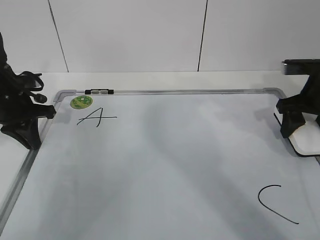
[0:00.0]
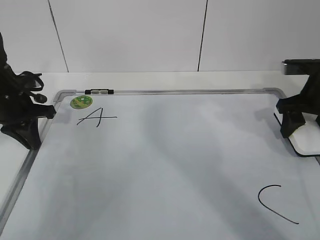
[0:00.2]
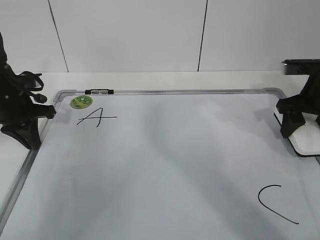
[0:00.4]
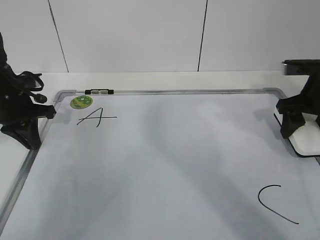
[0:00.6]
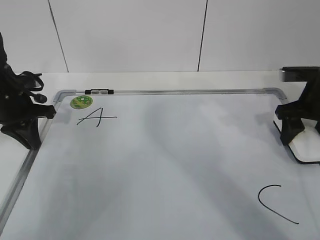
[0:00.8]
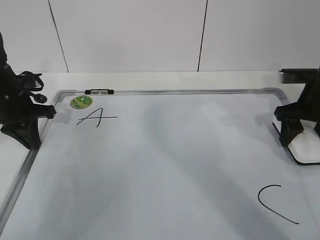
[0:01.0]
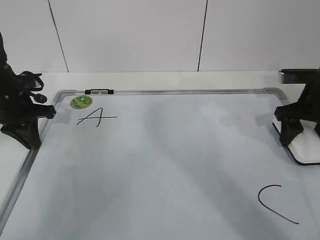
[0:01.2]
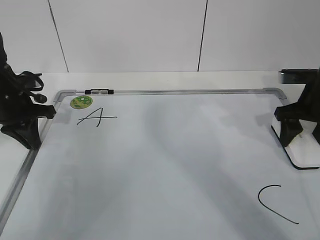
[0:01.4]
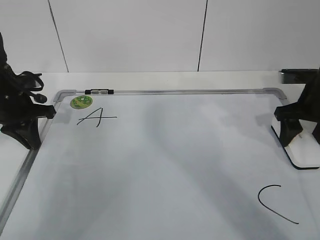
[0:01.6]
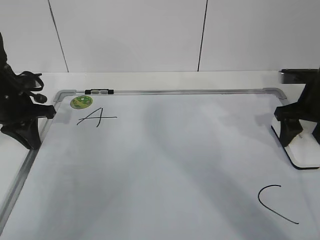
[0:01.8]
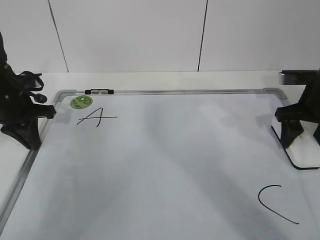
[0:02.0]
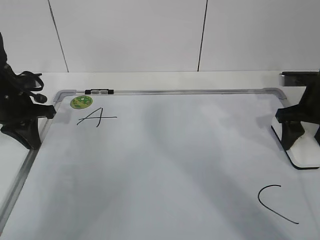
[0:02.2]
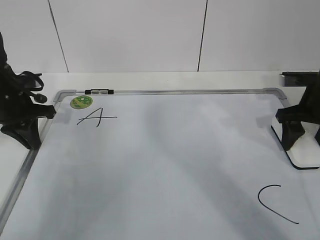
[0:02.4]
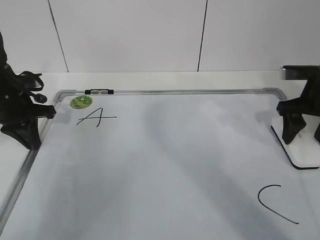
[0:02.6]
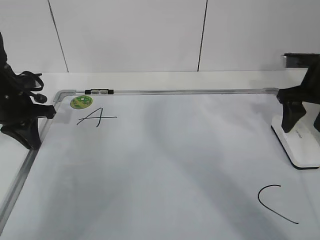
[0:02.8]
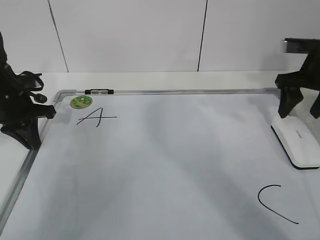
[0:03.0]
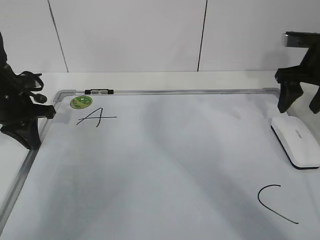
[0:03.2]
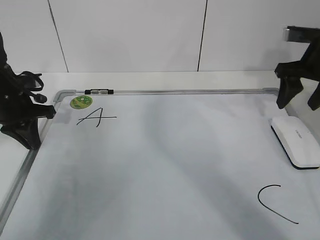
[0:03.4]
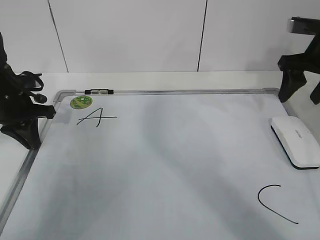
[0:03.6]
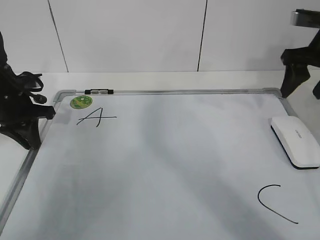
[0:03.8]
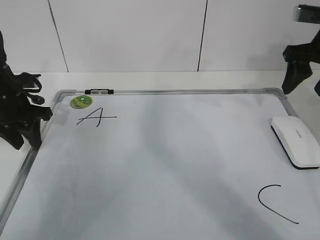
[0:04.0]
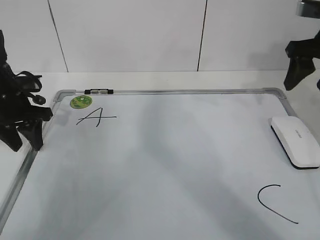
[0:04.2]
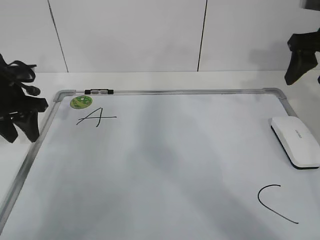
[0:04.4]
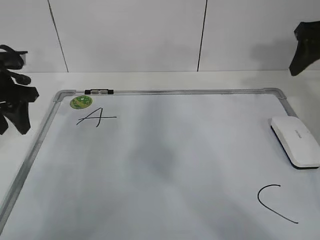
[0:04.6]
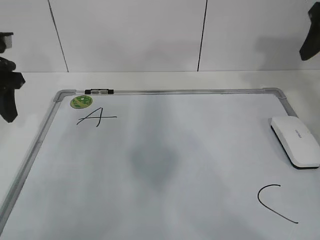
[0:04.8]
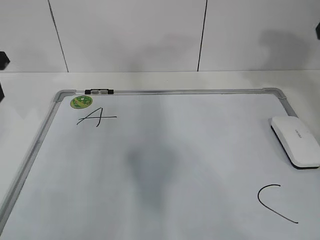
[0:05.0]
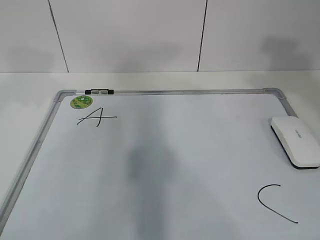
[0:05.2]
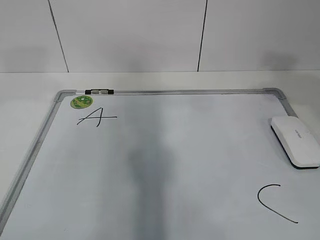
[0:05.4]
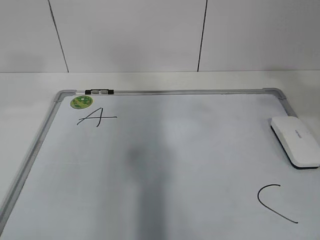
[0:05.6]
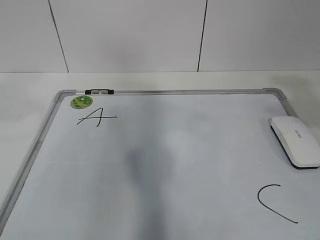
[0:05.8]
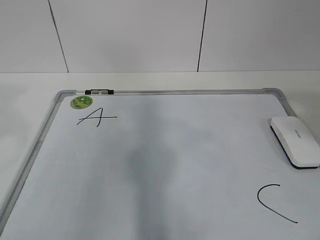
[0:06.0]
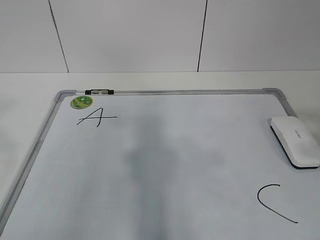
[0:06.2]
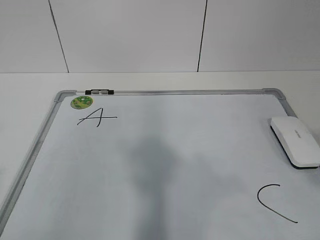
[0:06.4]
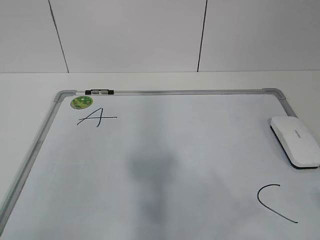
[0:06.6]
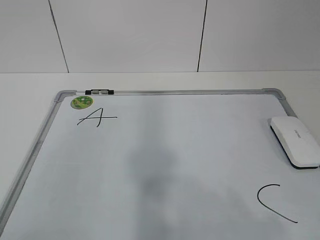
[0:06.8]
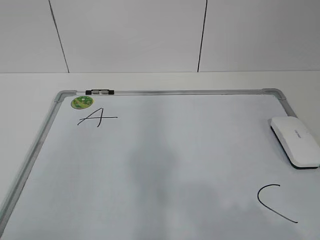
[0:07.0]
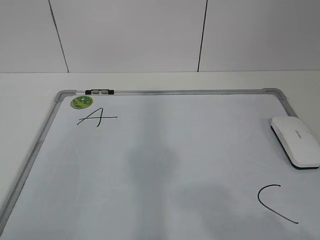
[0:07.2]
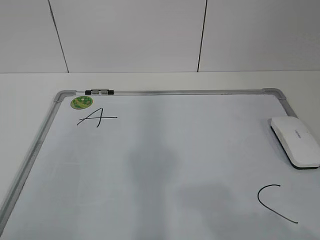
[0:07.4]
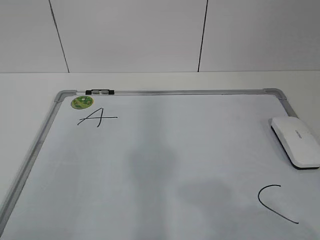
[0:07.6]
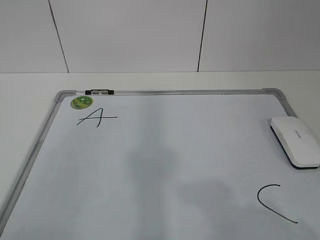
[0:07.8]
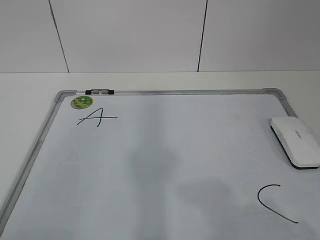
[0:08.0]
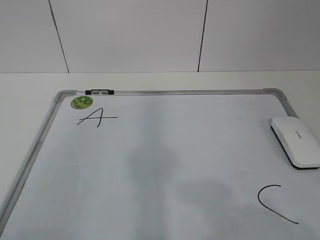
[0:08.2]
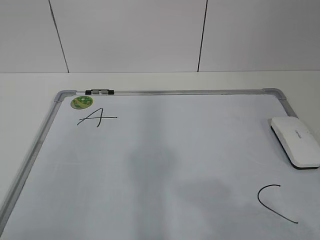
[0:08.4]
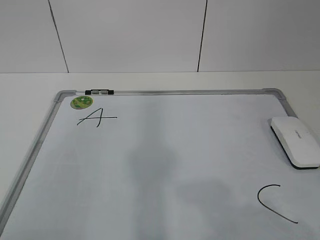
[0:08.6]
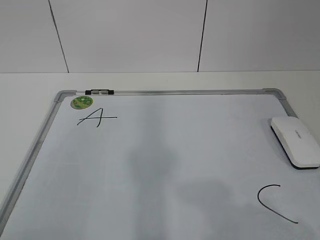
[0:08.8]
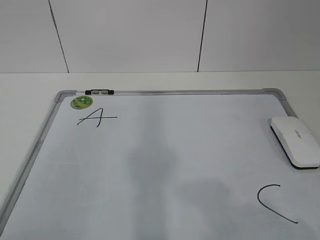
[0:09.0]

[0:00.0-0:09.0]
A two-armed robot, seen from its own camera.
Task of the whole recording: pick up the eraser on the blackboard and erase the letter "B".
0:00.0 to 0:01.6: Both grippers stay about where they are.
0:01.6 to 0:03.0: The right gripper travels upward by about 5 cm.
0:03.0 to 0:04.4: The left gripper opens up. The right gripper moves upward, some 5 cm.
0:04.4 to 0:06.0: Both grippers move backward and upward, approximately 35 cm. The left gripper closes up. The right gripper closes up.
0:06.0 to 0:07.6: The right gripper travels downward and backward by about 15 cm.
